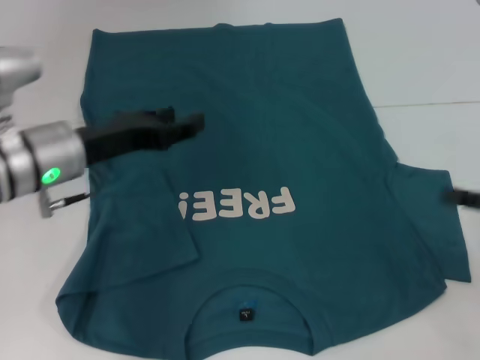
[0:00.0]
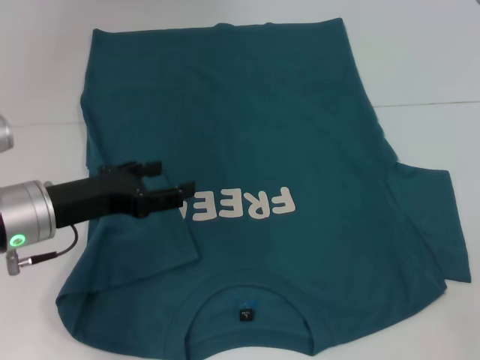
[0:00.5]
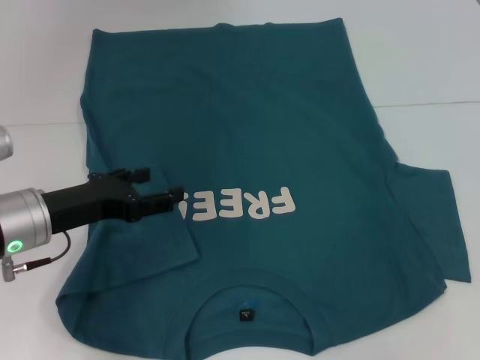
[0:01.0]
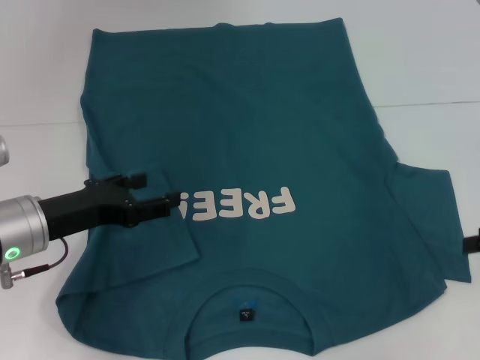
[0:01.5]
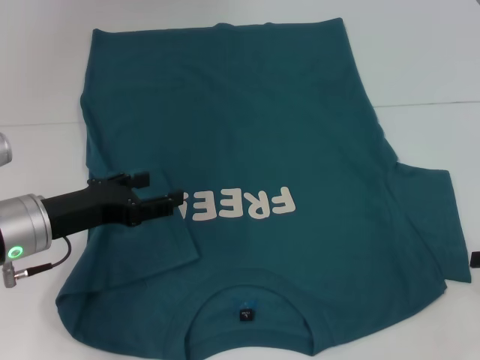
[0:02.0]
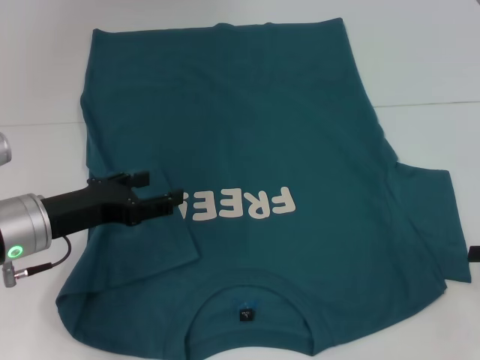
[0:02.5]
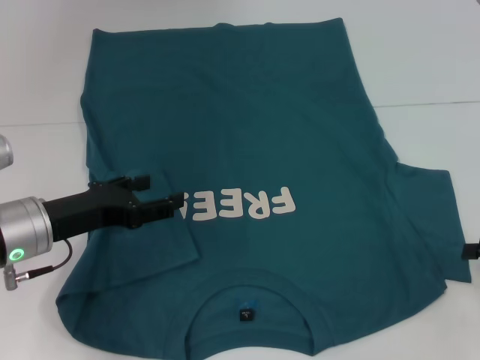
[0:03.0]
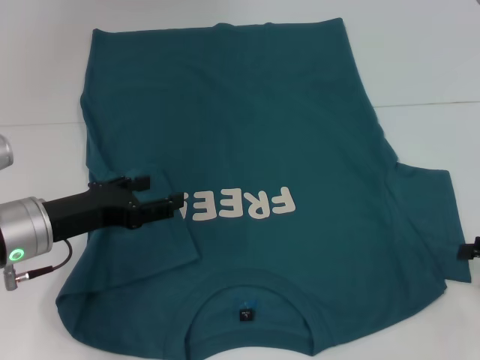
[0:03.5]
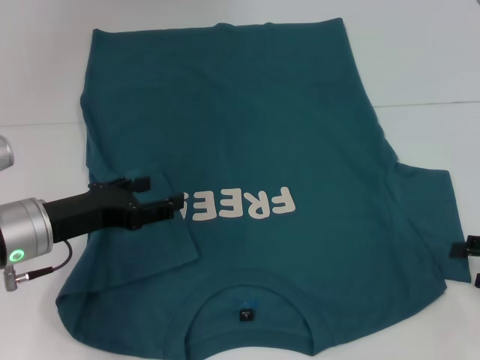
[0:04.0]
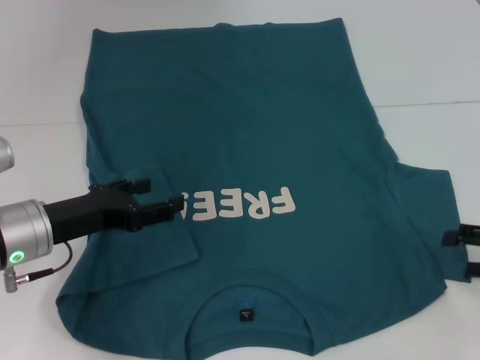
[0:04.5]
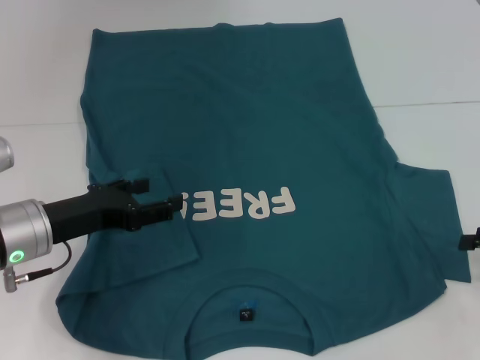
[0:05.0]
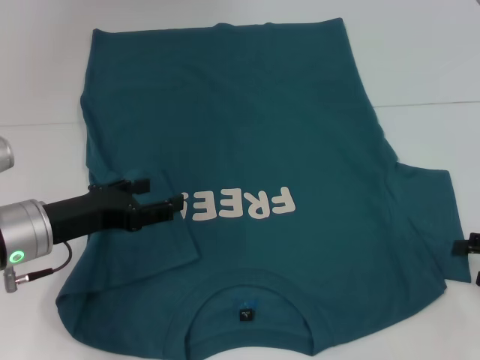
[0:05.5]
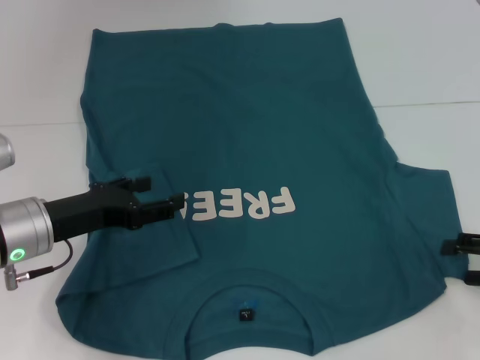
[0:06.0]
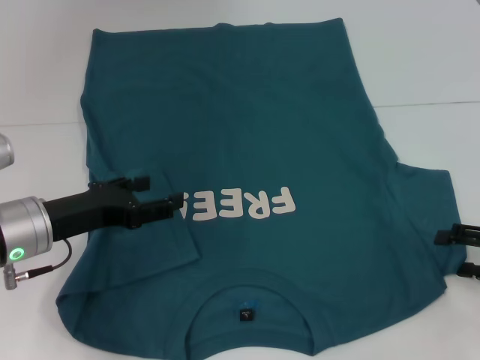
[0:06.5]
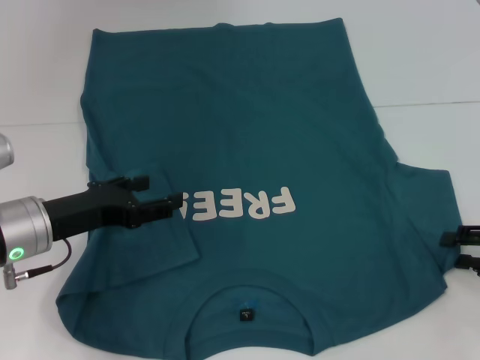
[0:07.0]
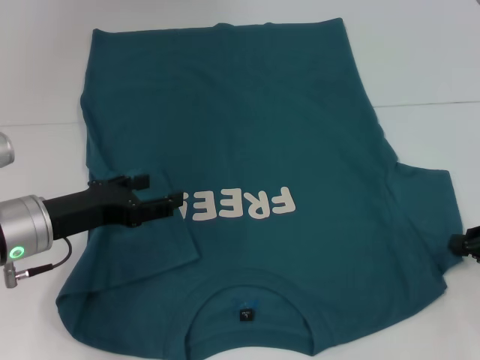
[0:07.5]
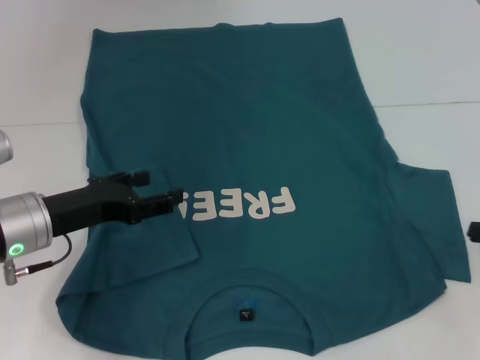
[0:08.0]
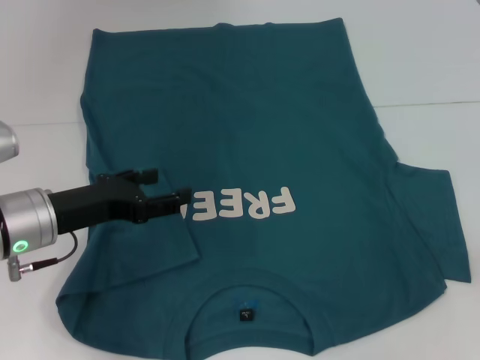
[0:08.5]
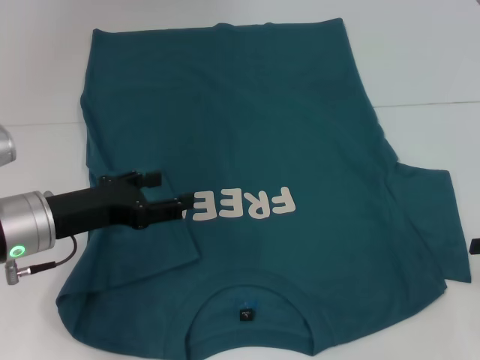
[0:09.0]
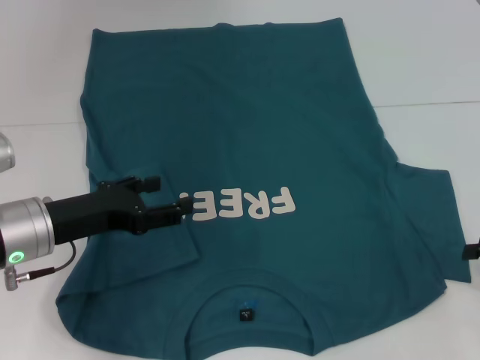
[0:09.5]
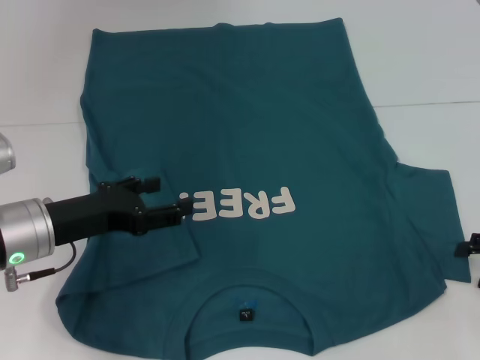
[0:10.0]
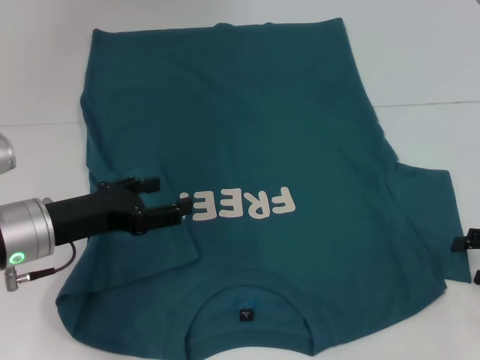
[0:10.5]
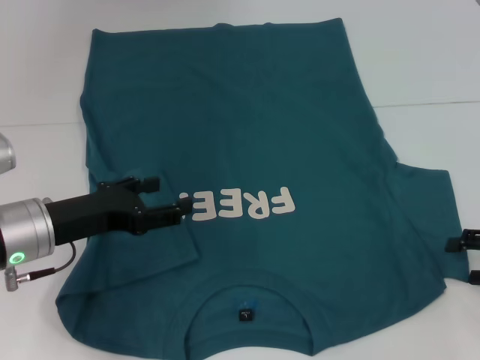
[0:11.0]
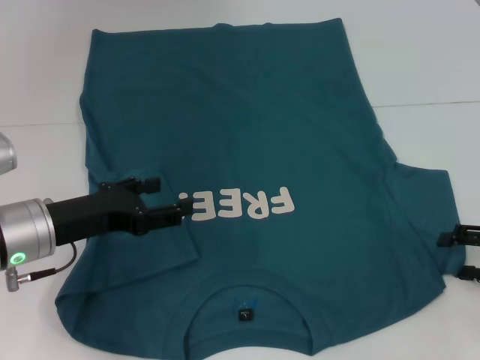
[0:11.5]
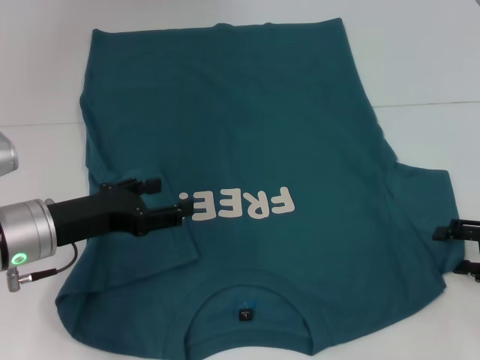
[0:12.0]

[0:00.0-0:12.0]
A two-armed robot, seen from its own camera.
0:00.0 to 0:02.0: The left gripper moves about 5 cm.
0:02.0 to 0:04.0: There are only small adjustments of the grippers.
0:06.0 to 0:08.0: The right gripper closes.
0:08.0 to 0:10.0: The right gripper opens its fingers.
0:10.0 to 0:12.0: The grippers make only small movements.

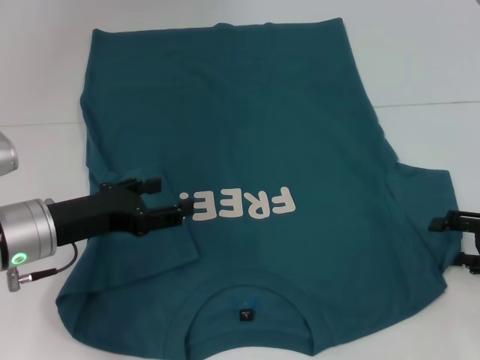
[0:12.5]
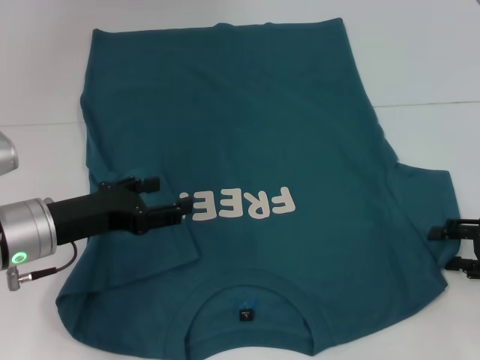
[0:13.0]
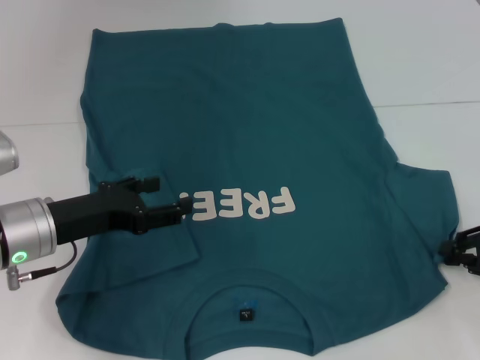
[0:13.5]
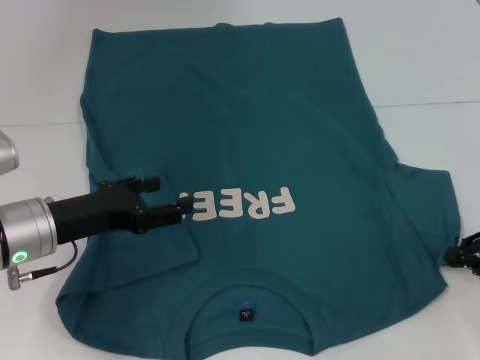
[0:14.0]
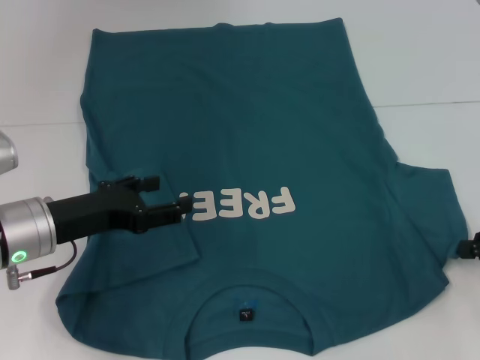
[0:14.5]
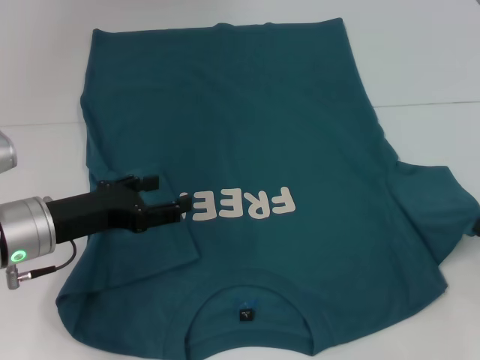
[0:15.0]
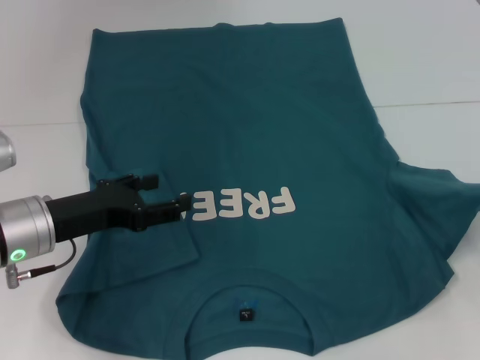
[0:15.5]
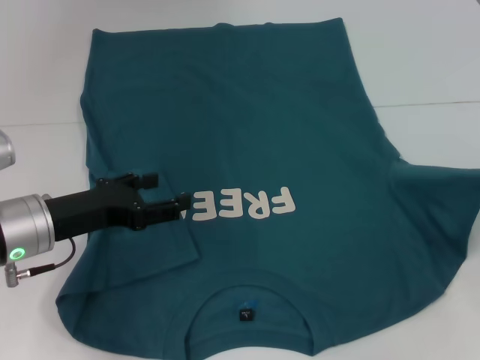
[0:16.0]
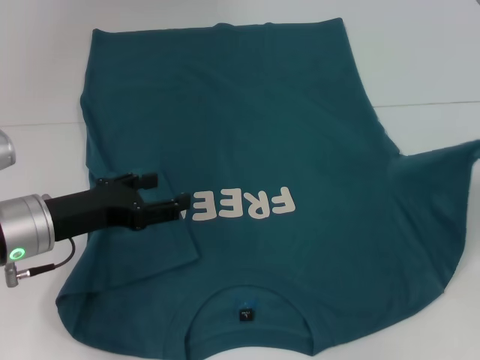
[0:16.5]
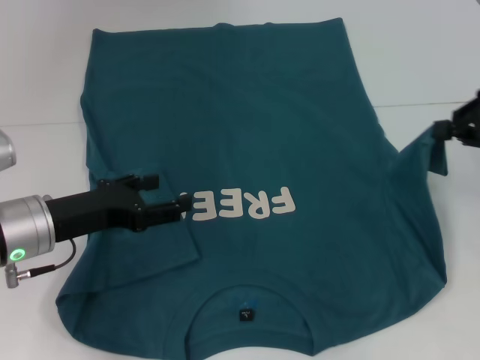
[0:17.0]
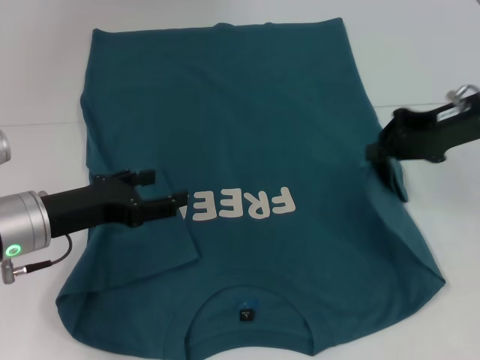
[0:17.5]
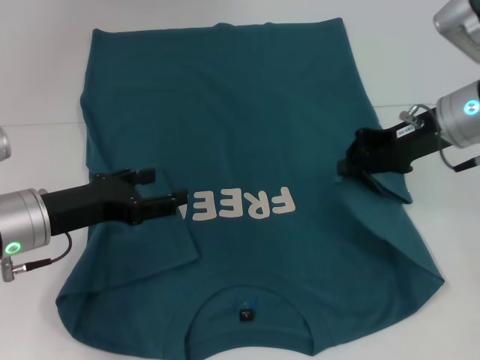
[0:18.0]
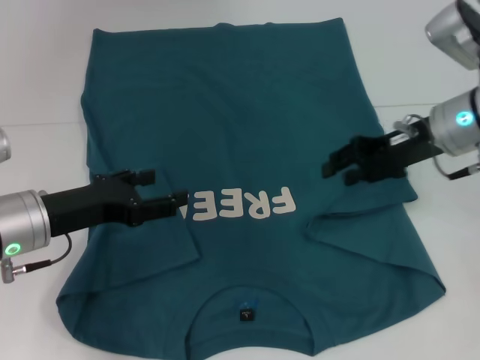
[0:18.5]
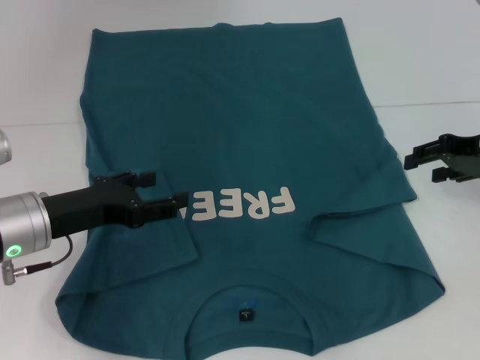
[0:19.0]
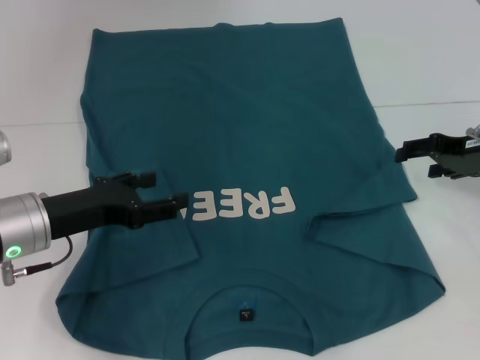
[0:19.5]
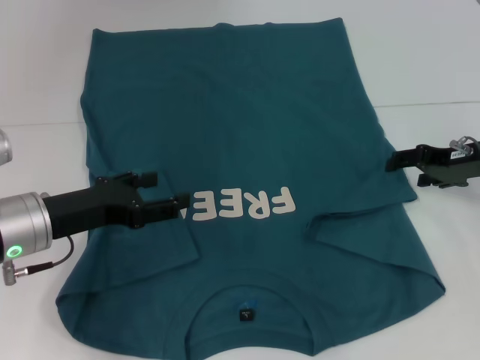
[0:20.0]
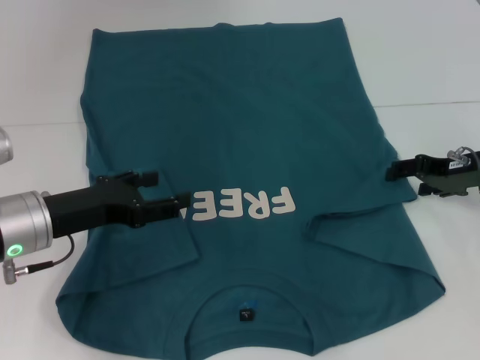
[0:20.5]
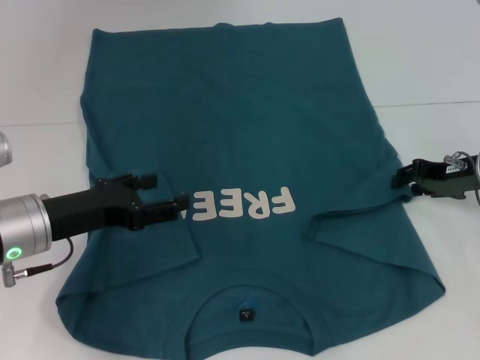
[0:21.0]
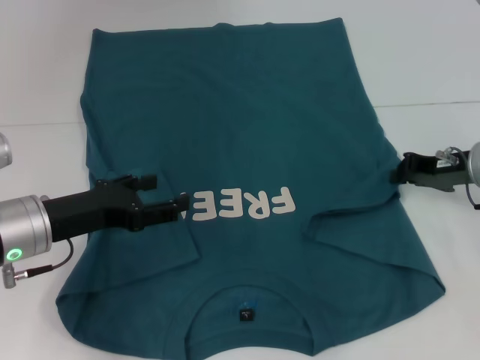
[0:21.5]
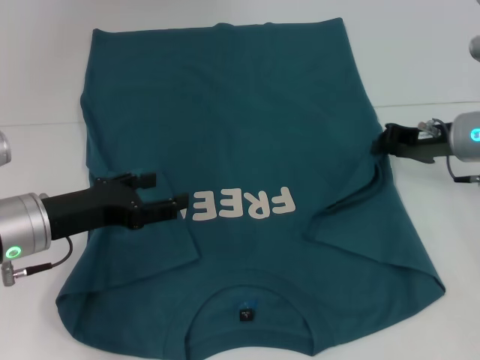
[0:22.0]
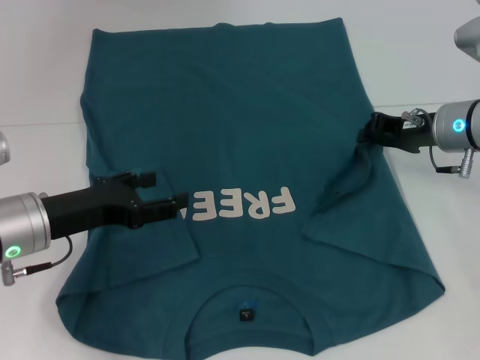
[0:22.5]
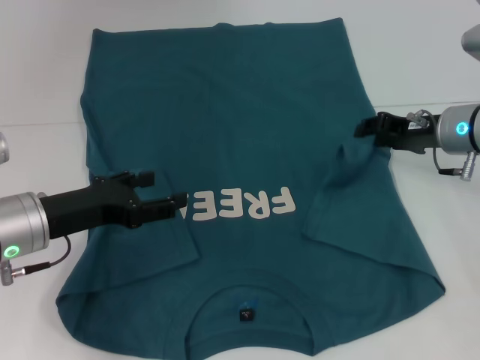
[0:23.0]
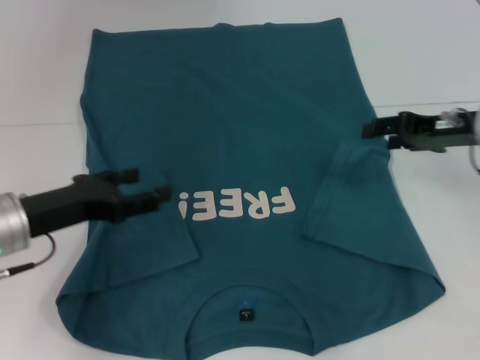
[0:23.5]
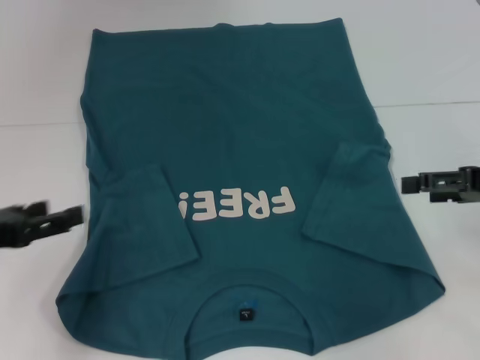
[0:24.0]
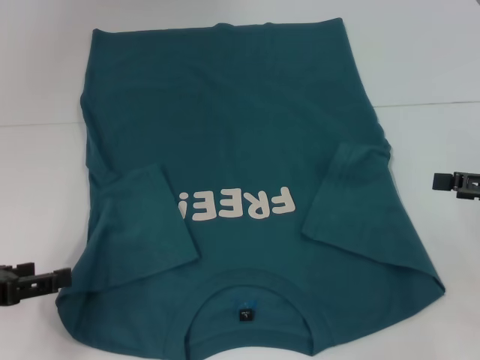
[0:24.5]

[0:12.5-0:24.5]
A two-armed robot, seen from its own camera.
Step, 0:12.5 to 0:23.0: Fold the bottom right sleeve to the right.
0:12.5 to 0:14.5: The right gripper closes up.
0:14.5 to 0:16.5: The right gripper shifts approximately 10 cm upward.
0:16.5 to 0:18.5: The right gripper shifts about 20 cm to the left and forward.
0:18.5 to 0:20.5: The right gripper moves to the right and downward, about 10 cm, and opens its fingers.
0:20.5 to 0:22.5: The right gripper moves roughly 5 cm, and closes its fingers.
0:22.5 to 0:24.5: The right gripper is displaced backward and to the right by approximately 15 cm, and opens its fingers; the left gripper moves to the left and backward, roughly 10 cm.

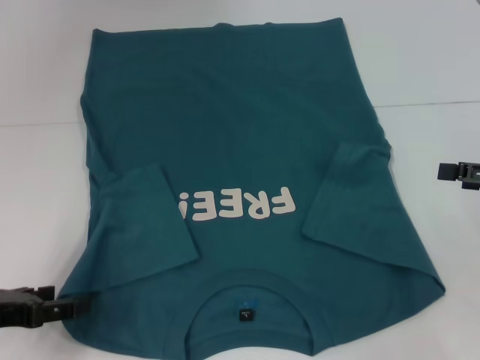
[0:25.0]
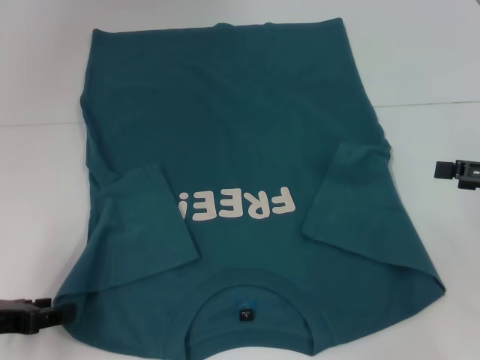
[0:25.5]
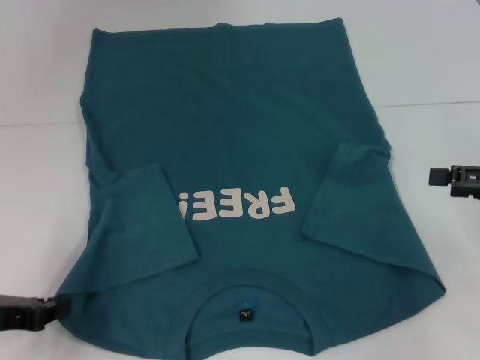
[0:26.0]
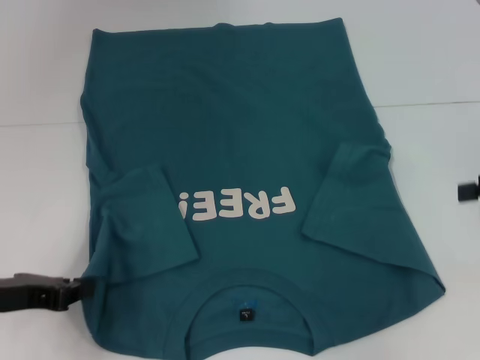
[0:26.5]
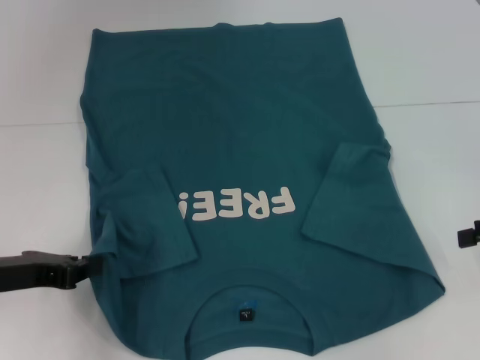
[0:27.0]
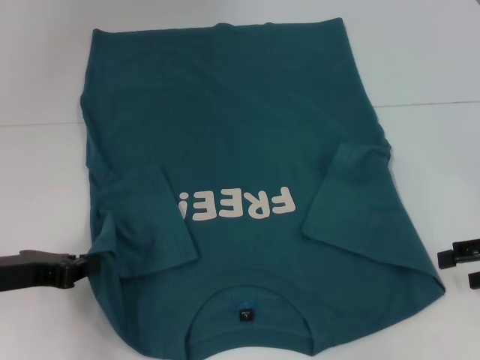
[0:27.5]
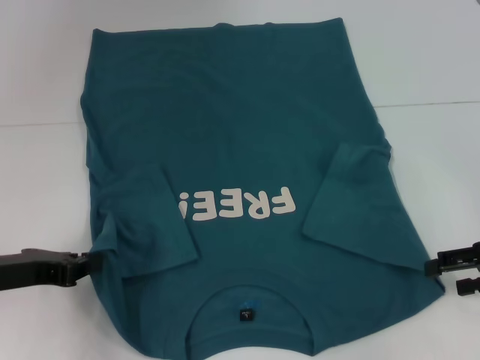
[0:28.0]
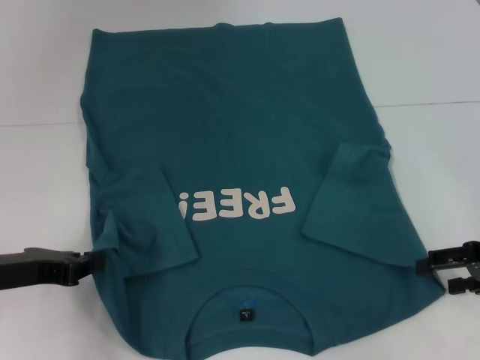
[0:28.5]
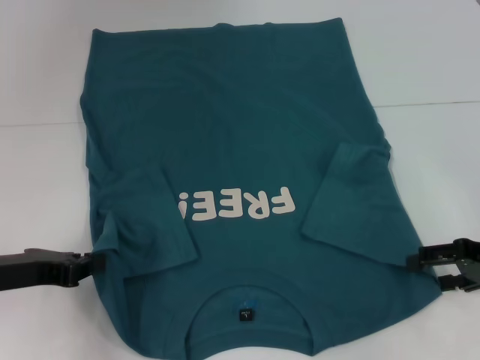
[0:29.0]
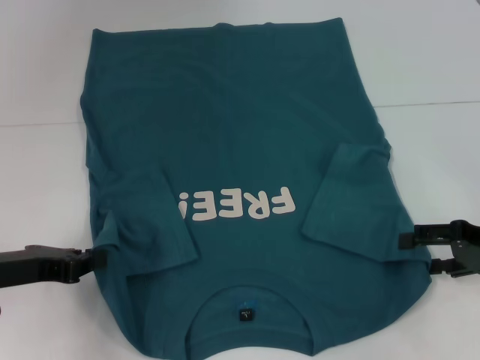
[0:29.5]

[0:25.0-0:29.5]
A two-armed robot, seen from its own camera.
0:25.0 to 0:27.0: The left gripper closes up.
0:27.0 to 0:29.5: The right gripper goes some 5 cm downward.
